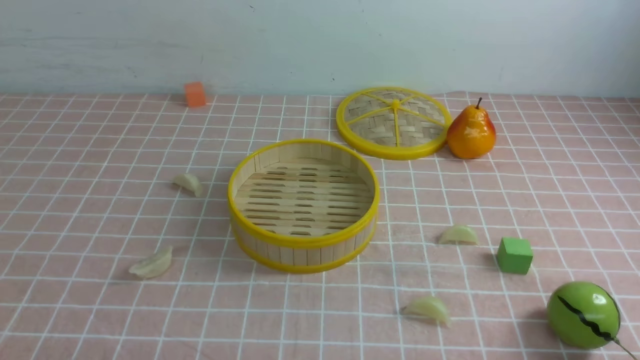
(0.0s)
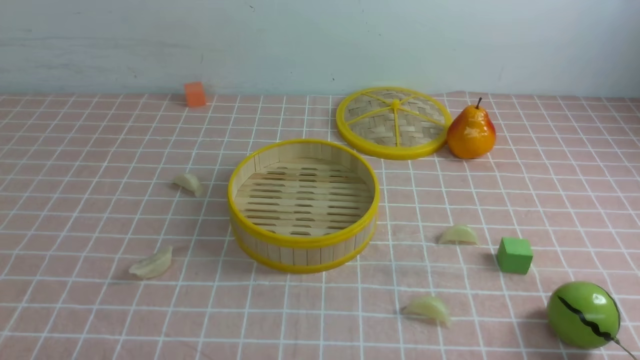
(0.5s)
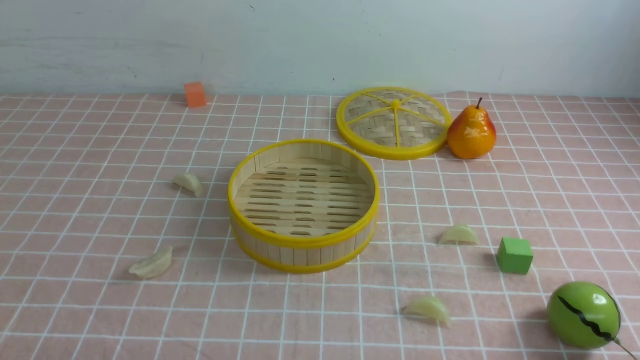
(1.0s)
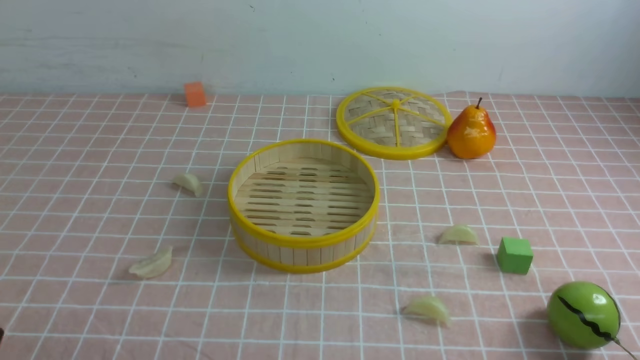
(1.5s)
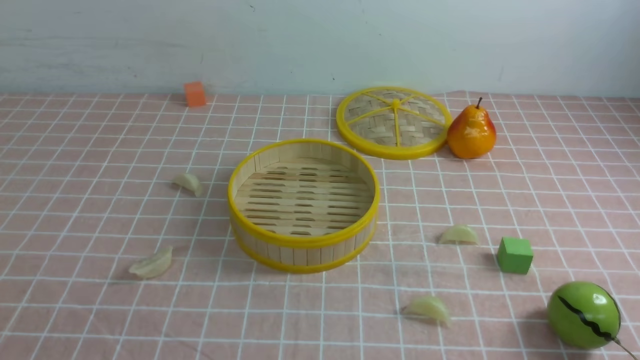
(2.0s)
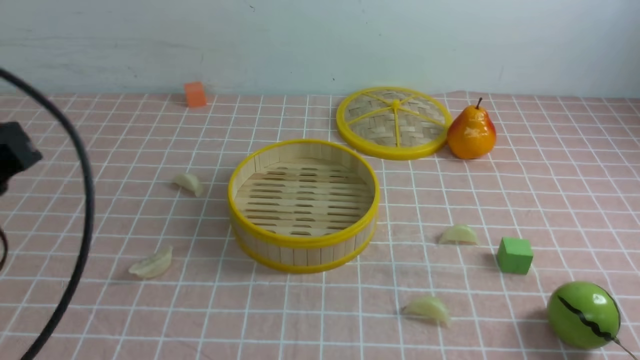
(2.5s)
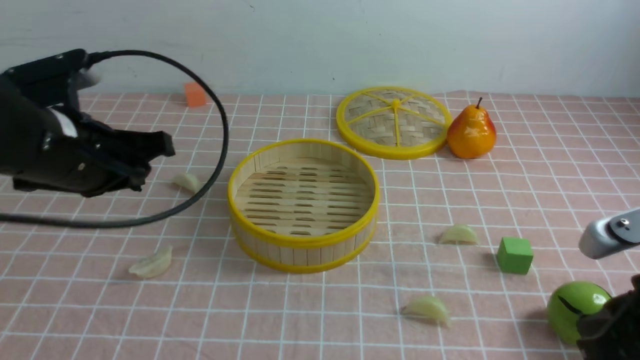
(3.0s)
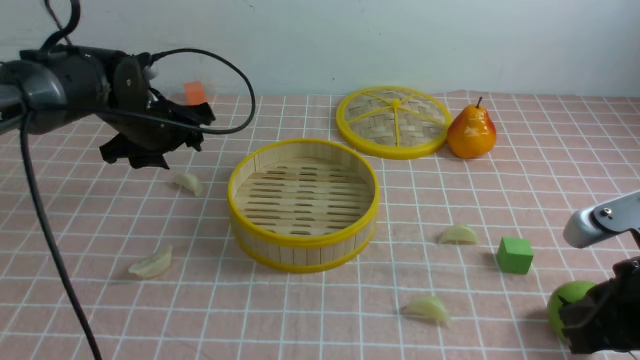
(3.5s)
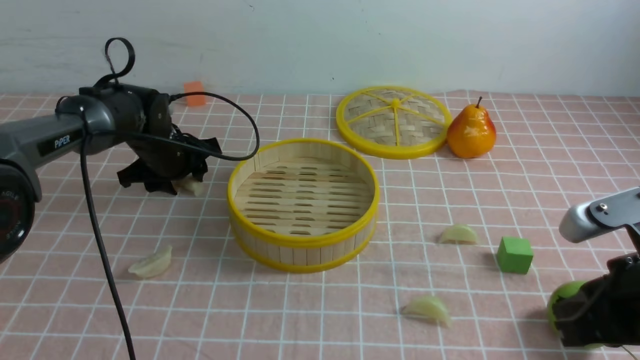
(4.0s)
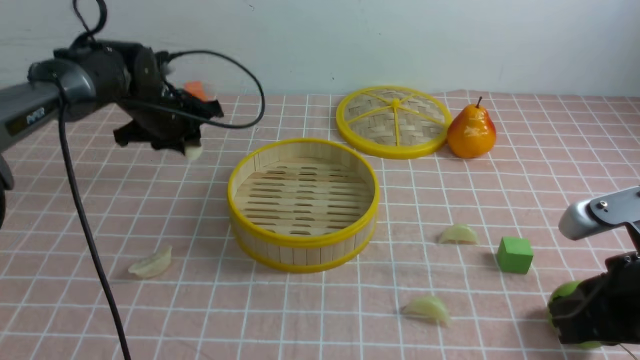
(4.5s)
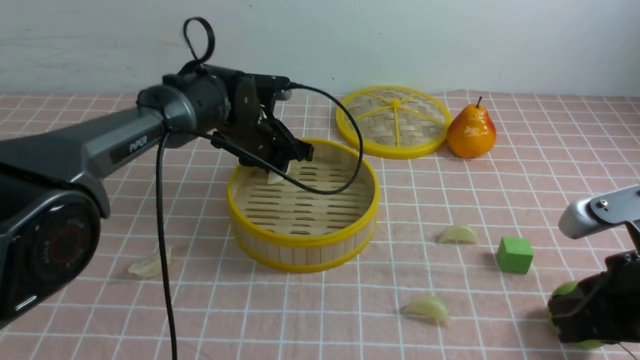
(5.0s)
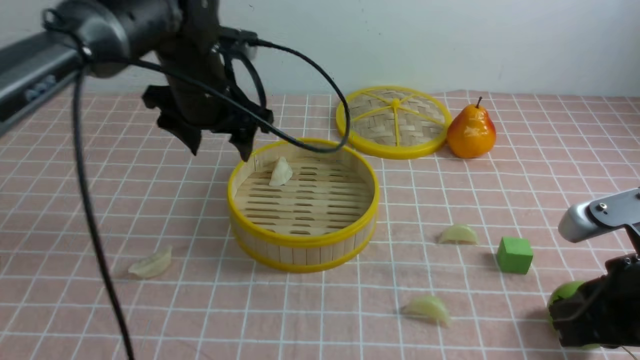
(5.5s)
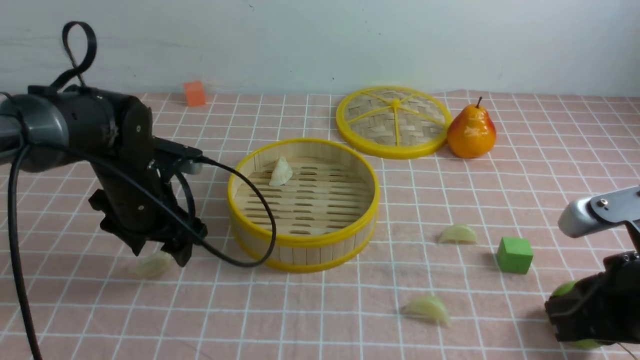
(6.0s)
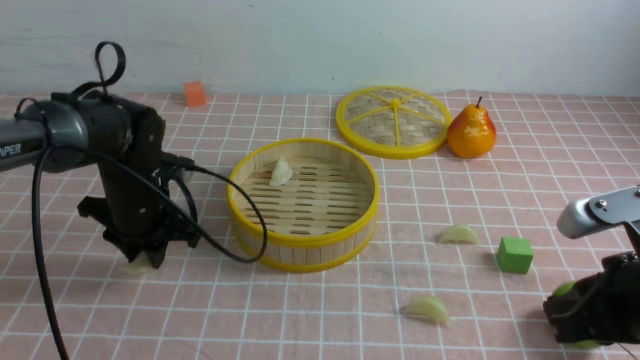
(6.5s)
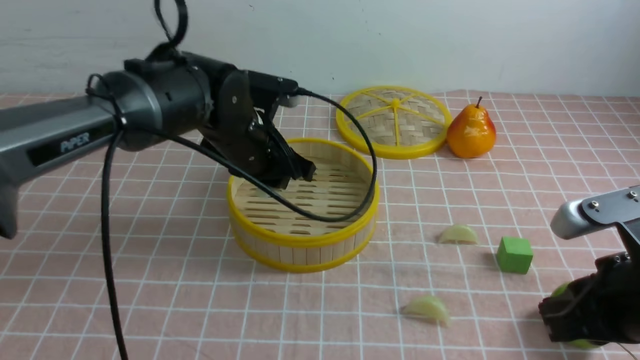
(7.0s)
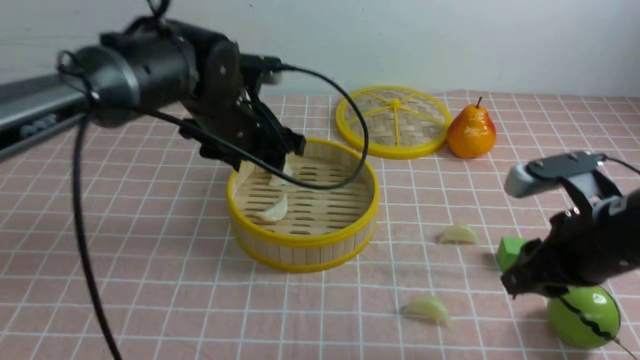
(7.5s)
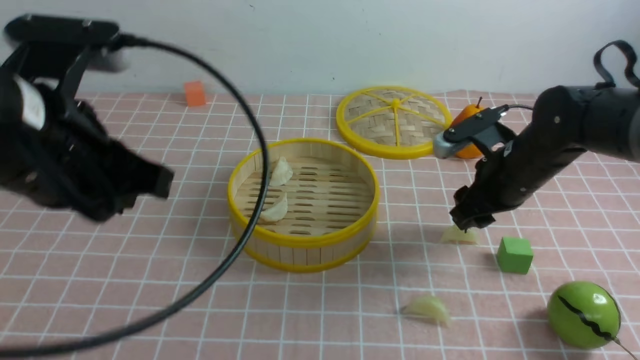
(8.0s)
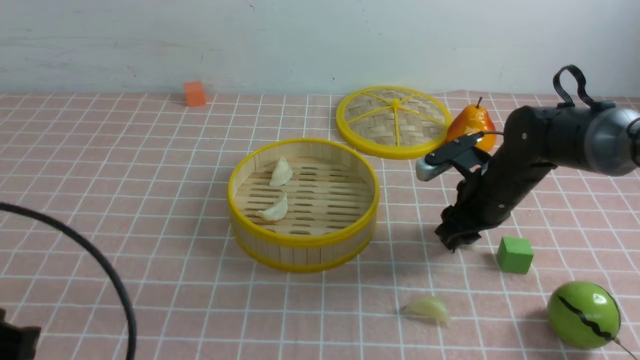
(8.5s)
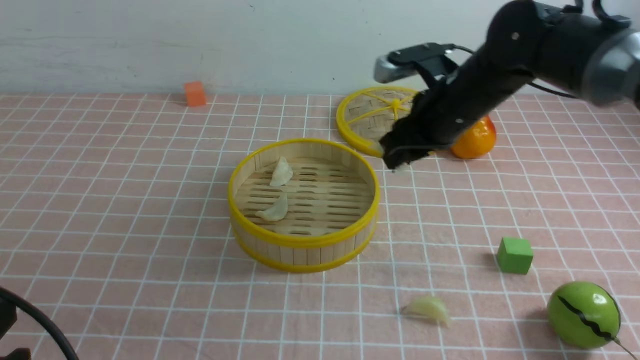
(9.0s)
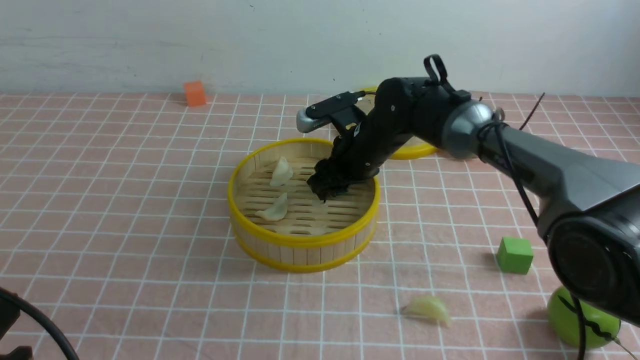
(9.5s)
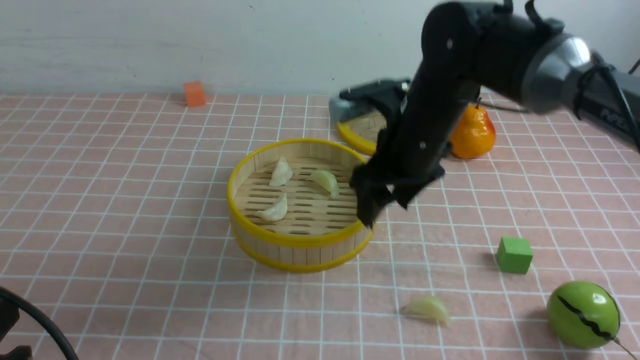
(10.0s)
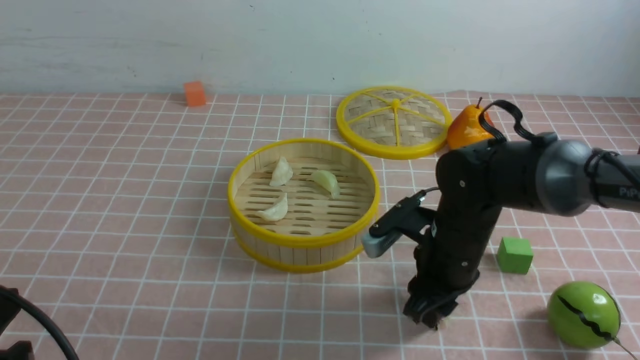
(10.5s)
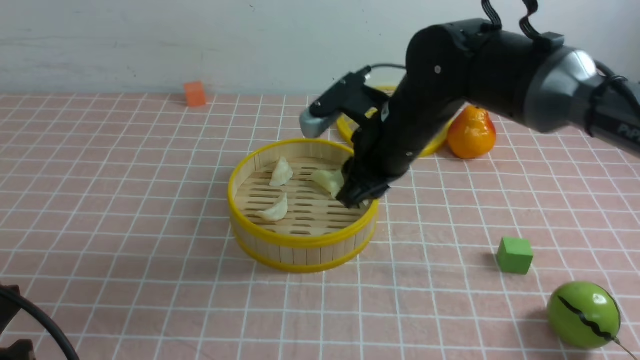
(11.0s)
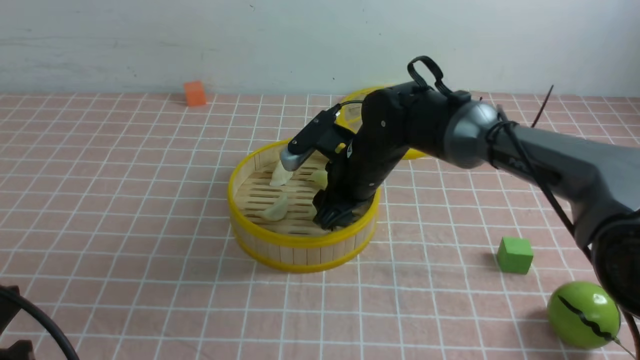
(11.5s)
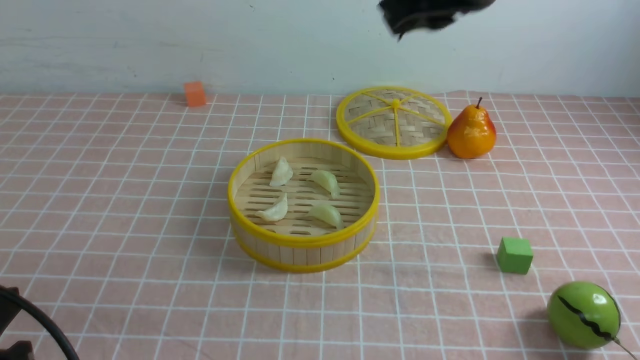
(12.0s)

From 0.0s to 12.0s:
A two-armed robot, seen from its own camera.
Task of the whole recording: put the dumplings into the steamer on the table with the pink tablecloth.
Step, from 0.0s to 4.0s: use the left arm to grab a dumpling.
Step, from 4.5s to 5.0s: use the left arm to put the dumpling into the steamer.
Step, from 5.5s to 6.0s: use the left arm to grab a dumpling.
Step, from 6.5s to 7.0s: use the left arm to put the dumpling into the steamer.
Step, from 7.5s to 8.5s: use the right arm to grab a dumpling.
Step, from 9.0s to 9.5s: use the right arm to put the dumpling into the steamer.
Step, from 10.0s to 10.5s: use the right arm to grab a dumpling.
Step, from 11.0s to 11.5s: use the right arm to put the dumpling into the steamer.
From 2.0s to 4.0s: The right gripper travels forward and to the left by roughly 15 cm, while the left gripper travels forward by about 40 cm, and opens up.
From 4.0s to 6.0s: The left gripper travels backward by approximately 10 cm, and closes and opens again.
From 6.0s to 8.0s: The right gripper travels forward by about 20 cm, and opens. The left gripper heads upward and backward, covering some 20 cm, and closes up.
From 8.0s to 10.0s: The left gripper shifts approximately 20 cm backward, downward and to the left, while the right gripper travels to the left by roughly 15 cm, and closes, then reopens.
From 10.0s to 12.0s: The right gripper shifts roughly 15 cm upward and backward, and closes.

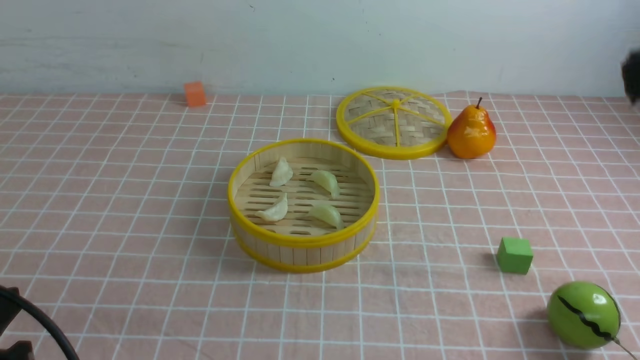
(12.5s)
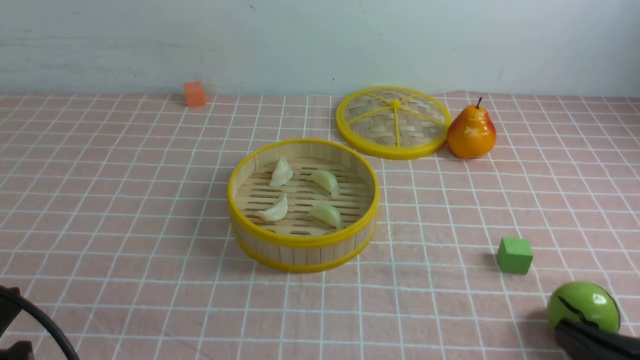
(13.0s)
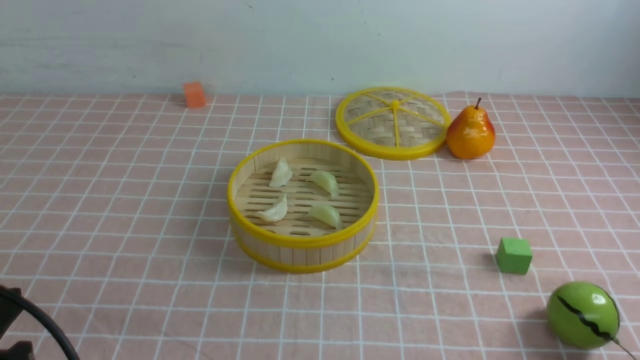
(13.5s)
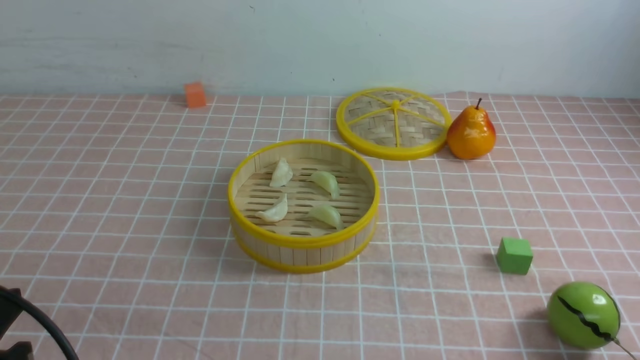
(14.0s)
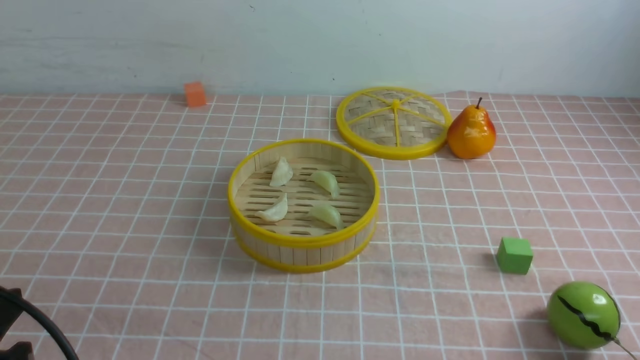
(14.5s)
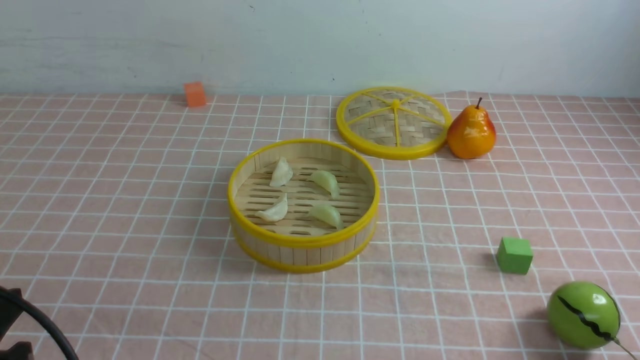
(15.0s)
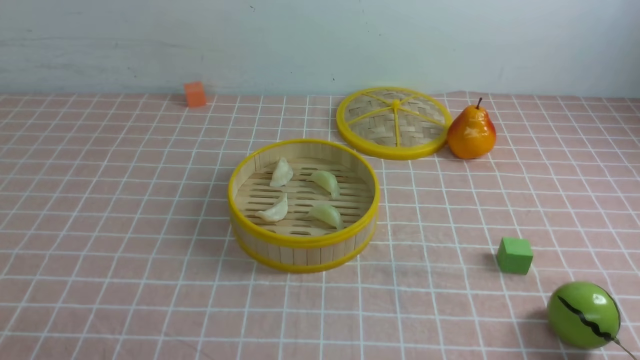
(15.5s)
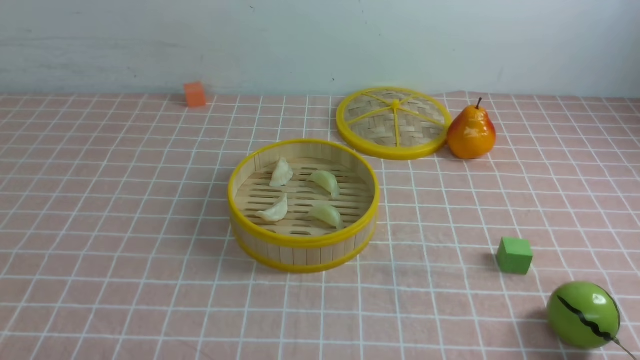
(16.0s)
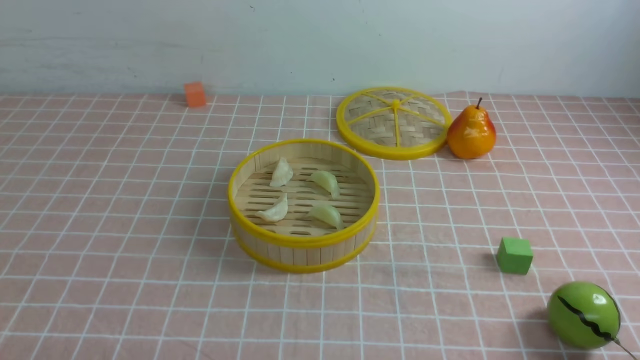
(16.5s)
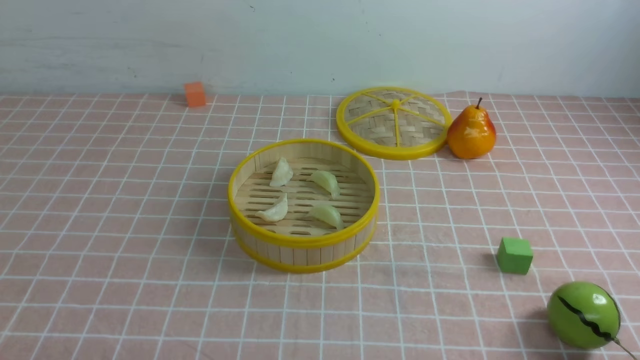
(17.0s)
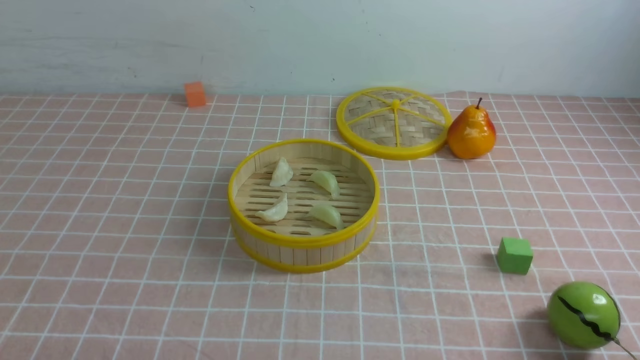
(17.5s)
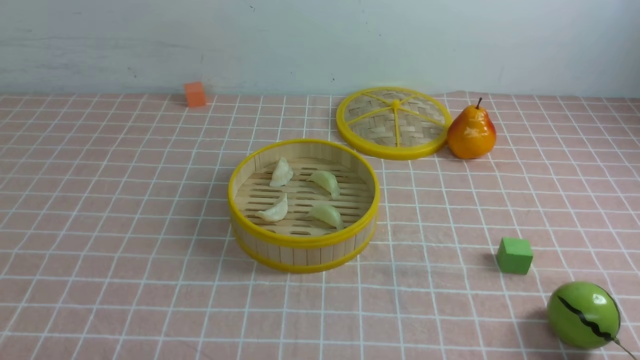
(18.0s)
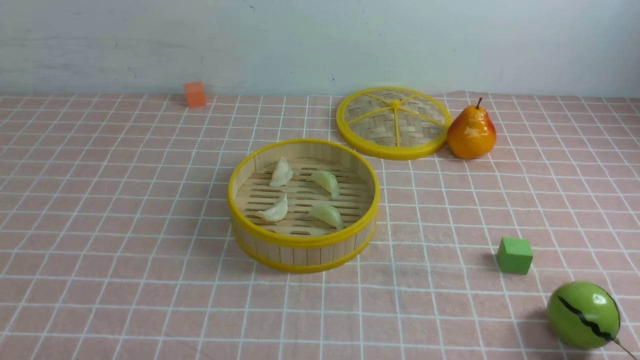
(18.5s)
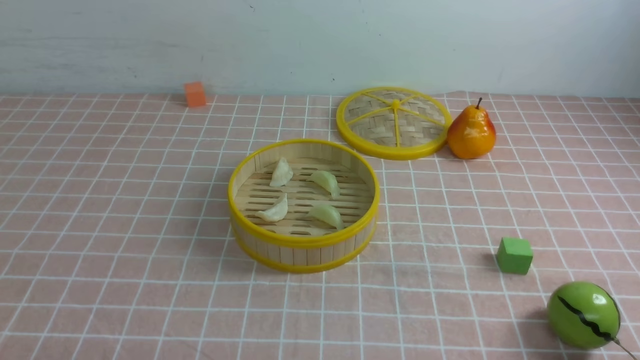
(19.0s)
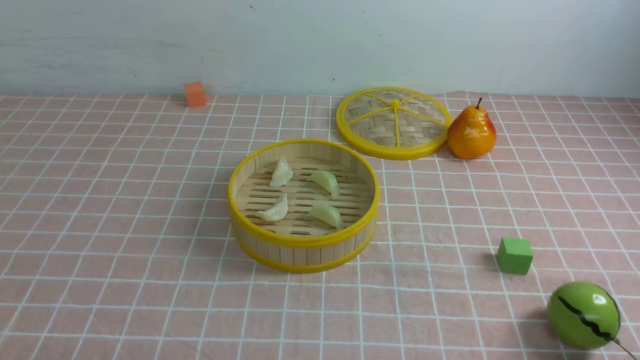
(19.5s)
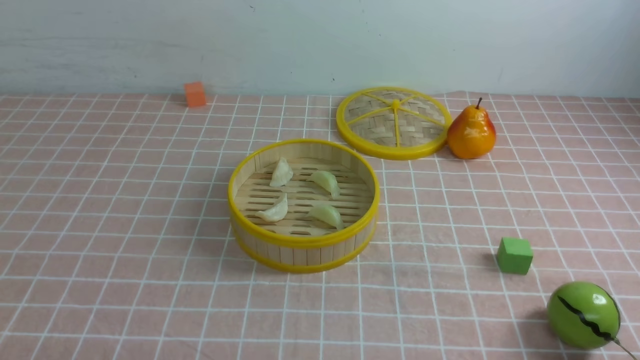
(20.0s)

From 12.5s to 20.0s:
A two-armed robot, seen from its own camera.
Task of the whole recording: put the dumplings into the steamer on the table with the pink tablecloth.
From 14.5s to 16.5s: The left gripper heads downward, covering some 10 cm.
From 16.5s to 20.0s: Both grippers stay about where they are.
